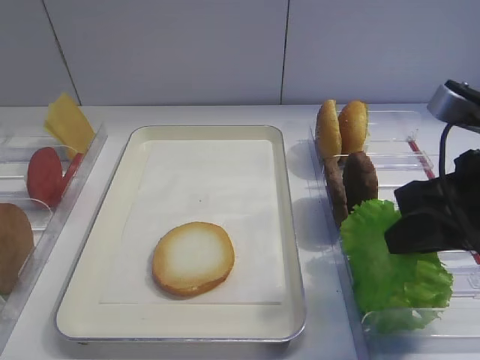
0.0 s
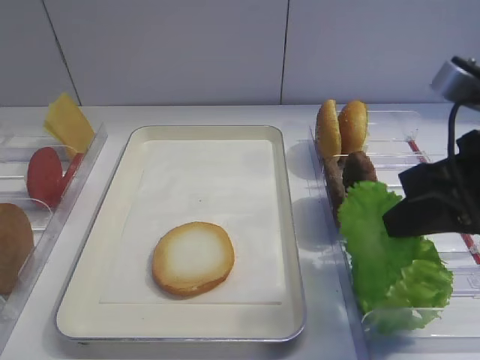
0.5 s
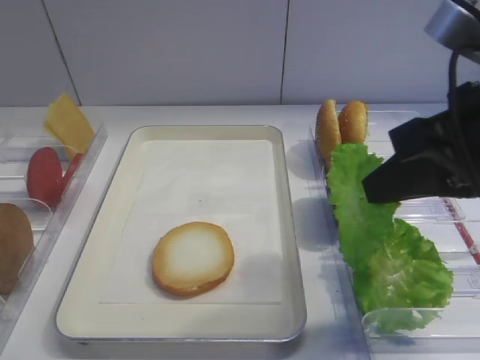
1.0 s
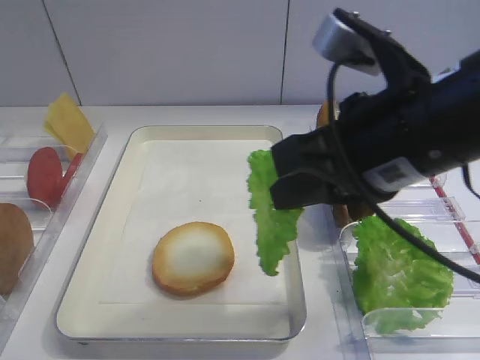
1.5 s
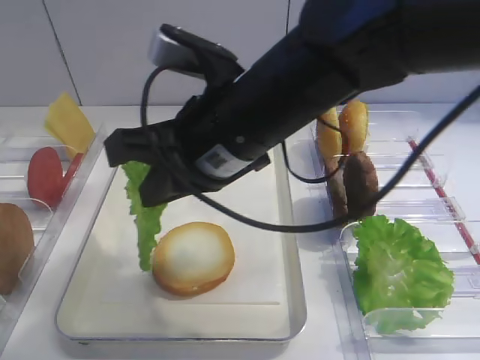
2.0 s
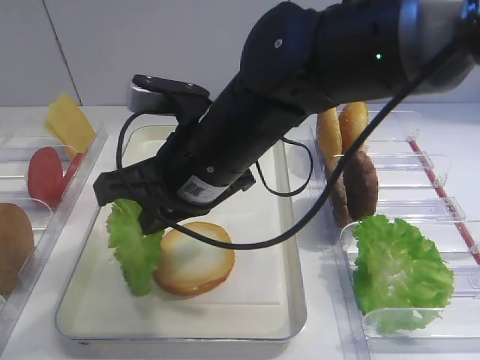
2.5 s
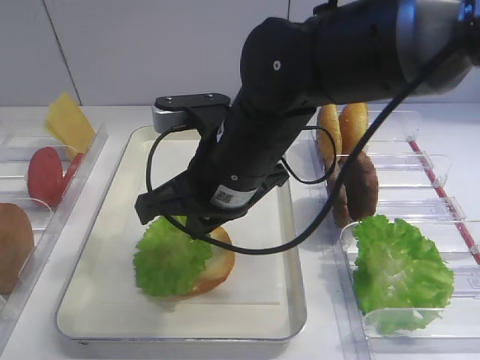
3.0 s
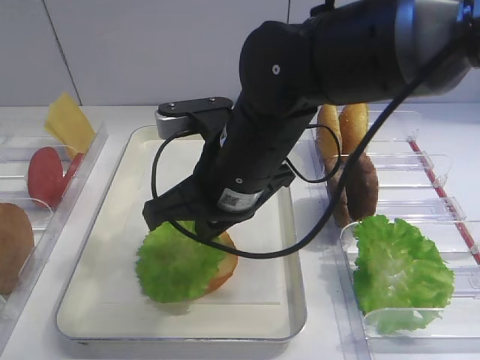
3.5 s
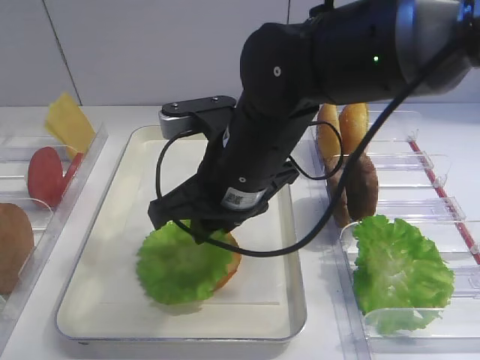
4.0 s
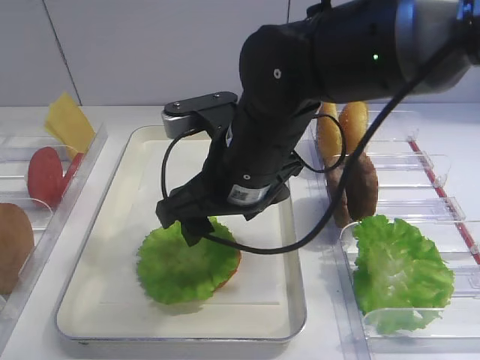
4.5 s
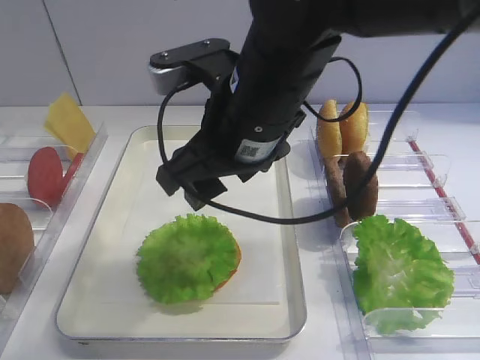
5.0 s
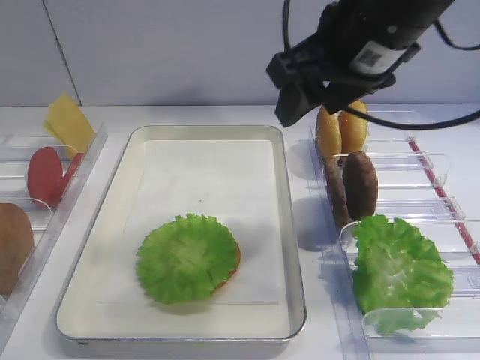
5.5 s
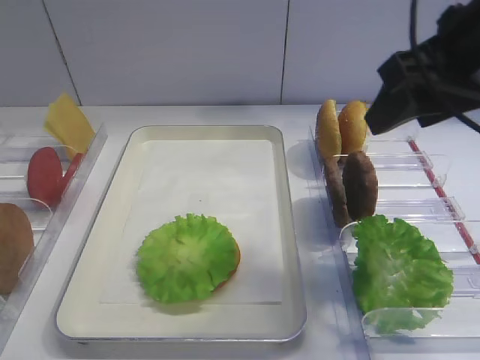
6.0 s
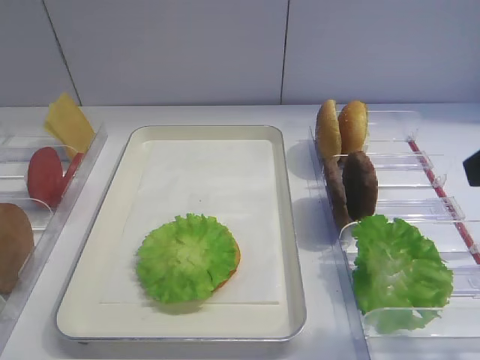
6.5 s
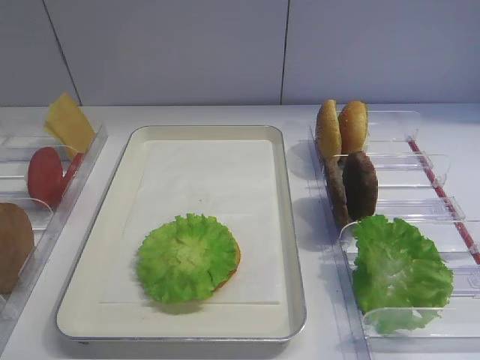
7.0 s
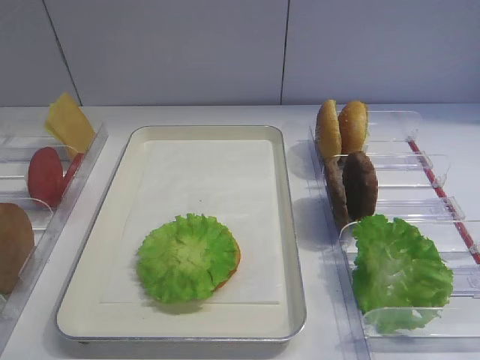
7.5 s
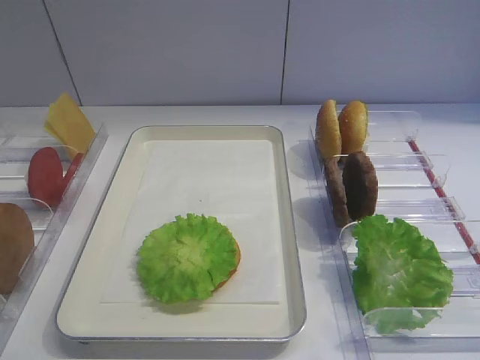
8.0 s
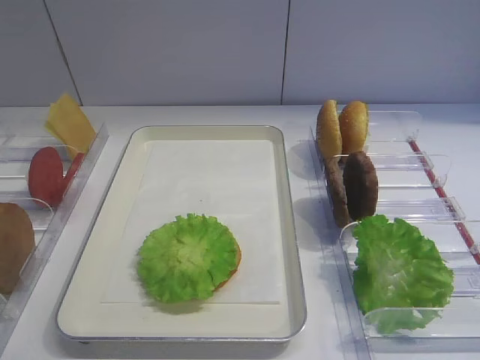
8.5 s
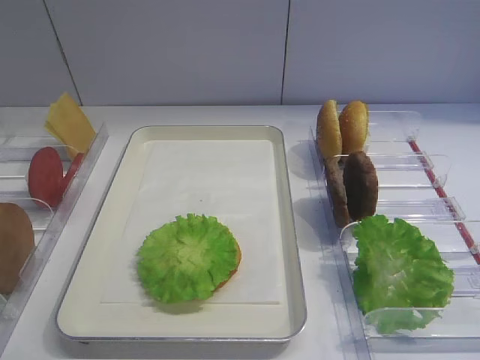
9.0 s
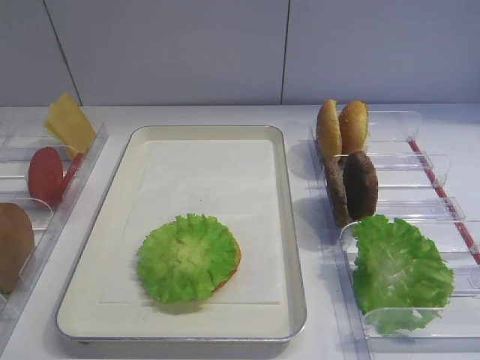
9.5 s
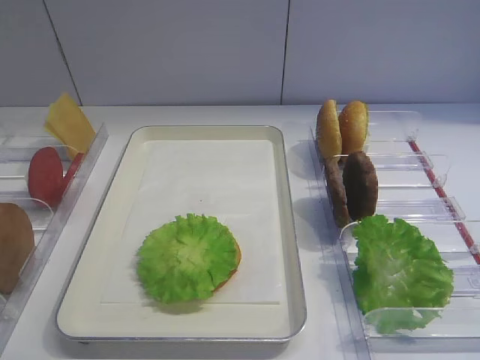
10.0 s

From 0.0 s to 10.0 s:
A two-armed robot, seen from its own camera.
Step, from 1.0 s to 4.0 s: Place the lettuce leaf on the bread slice with the right gripper.
From 0.0 s to 2.0 s: The right gripper heads to the left, covering about 20 cm.
From 2.0 s to 4.0 s: The right gripper heads downward, covering approximately 5 cm, and opens its fingers.
From 4.0 s to 6.0 s: The right gripper is displaced to the right and upward by about 20 cm, and opens its fingers.
From 6.0 s to 8.0 s: The right gripper shifts approximately 25 cm backward.
